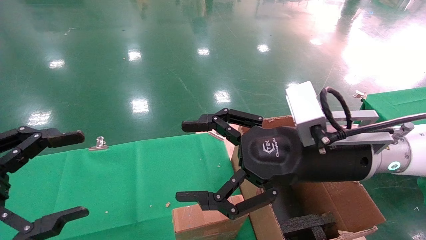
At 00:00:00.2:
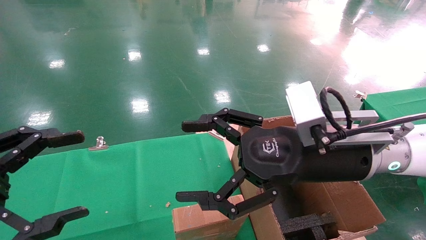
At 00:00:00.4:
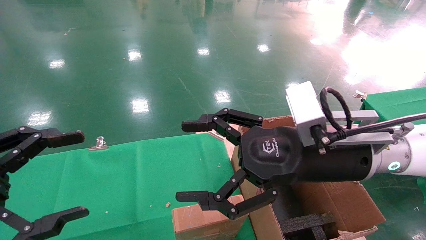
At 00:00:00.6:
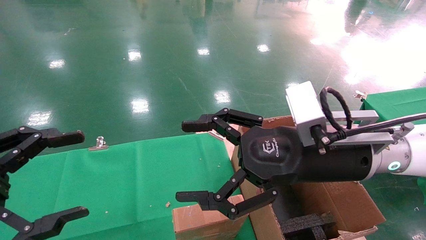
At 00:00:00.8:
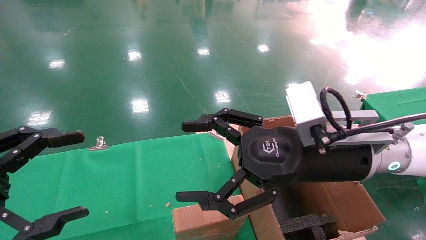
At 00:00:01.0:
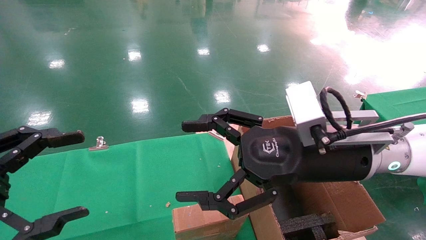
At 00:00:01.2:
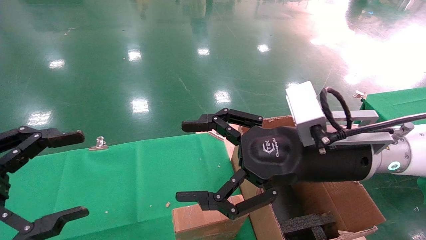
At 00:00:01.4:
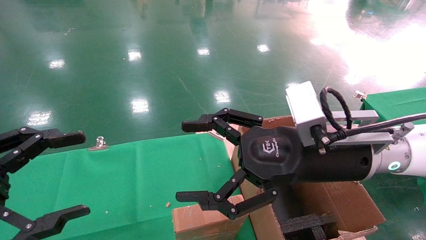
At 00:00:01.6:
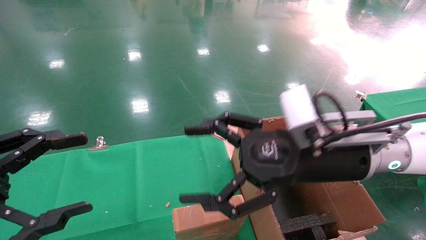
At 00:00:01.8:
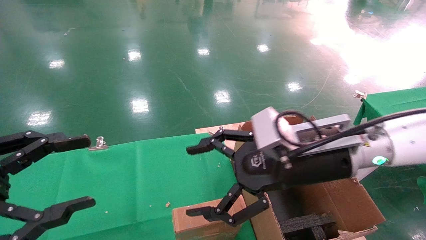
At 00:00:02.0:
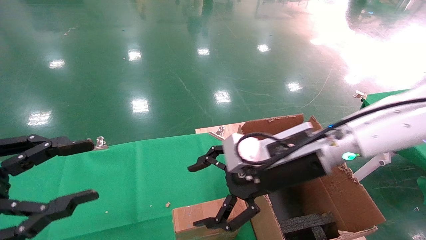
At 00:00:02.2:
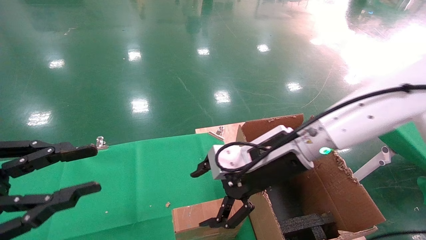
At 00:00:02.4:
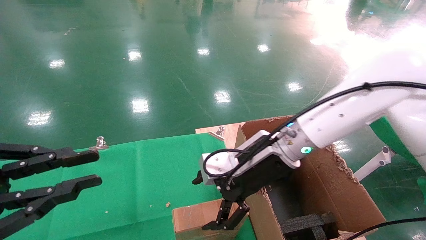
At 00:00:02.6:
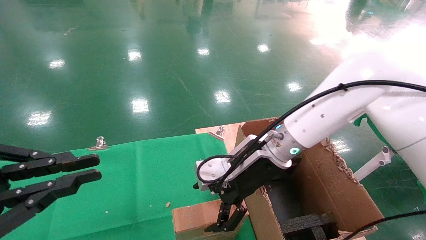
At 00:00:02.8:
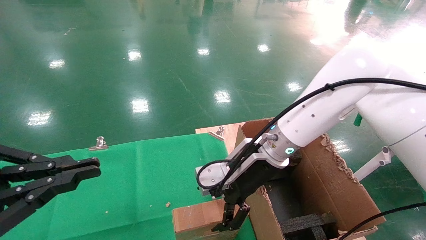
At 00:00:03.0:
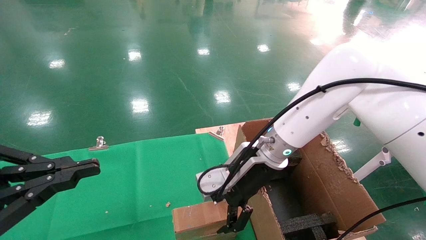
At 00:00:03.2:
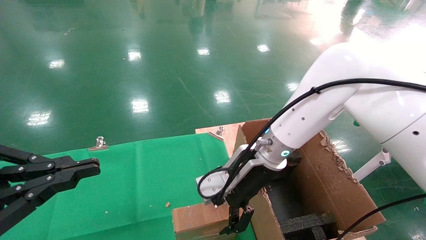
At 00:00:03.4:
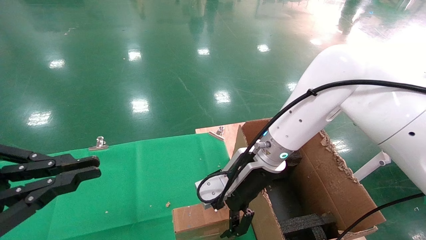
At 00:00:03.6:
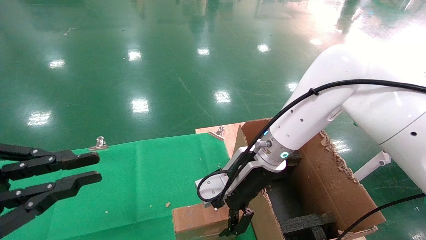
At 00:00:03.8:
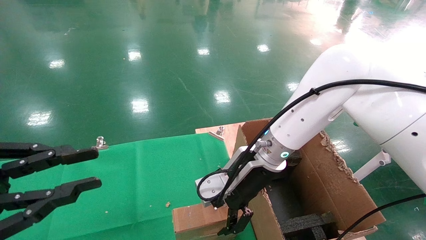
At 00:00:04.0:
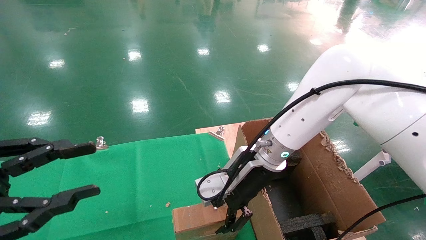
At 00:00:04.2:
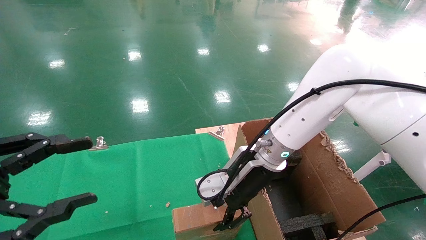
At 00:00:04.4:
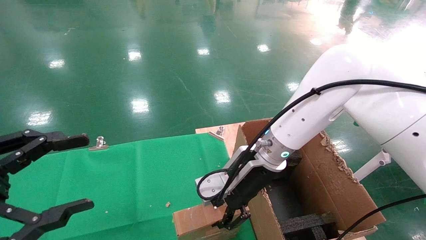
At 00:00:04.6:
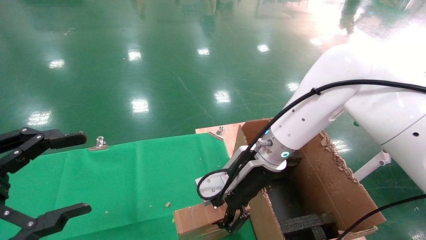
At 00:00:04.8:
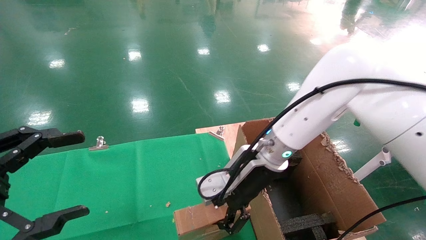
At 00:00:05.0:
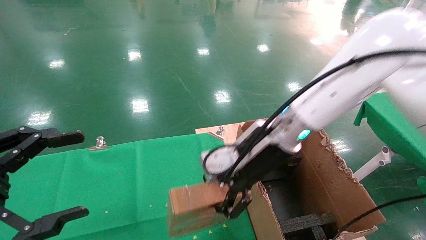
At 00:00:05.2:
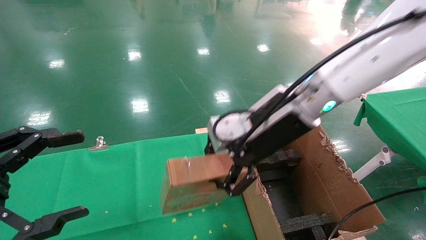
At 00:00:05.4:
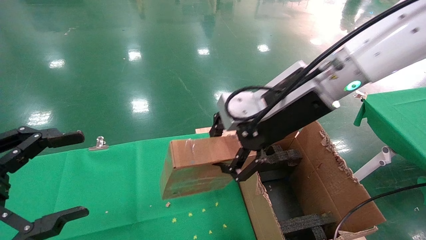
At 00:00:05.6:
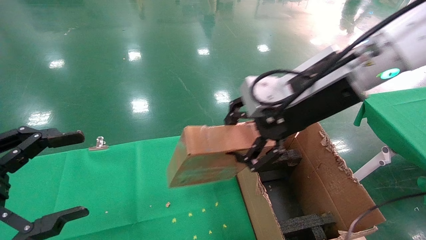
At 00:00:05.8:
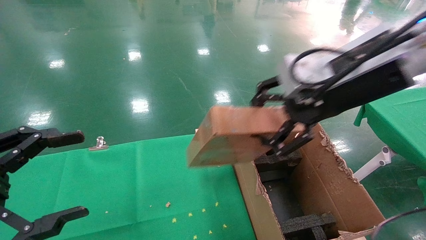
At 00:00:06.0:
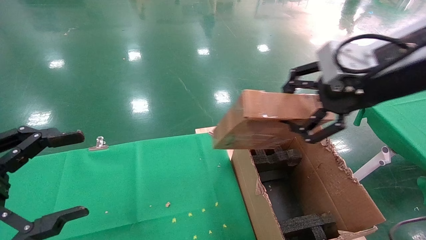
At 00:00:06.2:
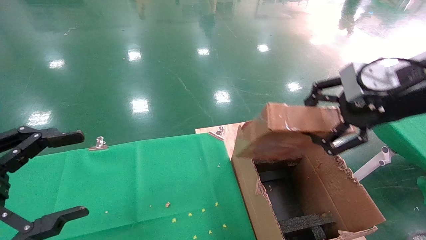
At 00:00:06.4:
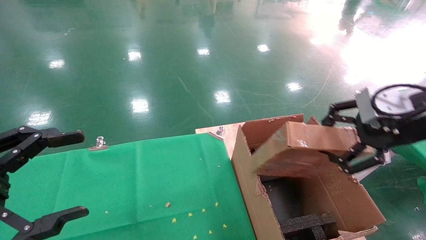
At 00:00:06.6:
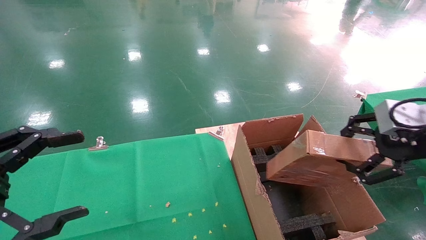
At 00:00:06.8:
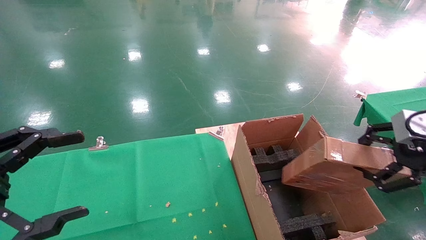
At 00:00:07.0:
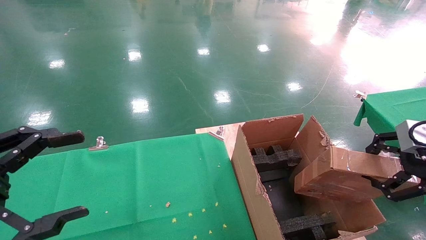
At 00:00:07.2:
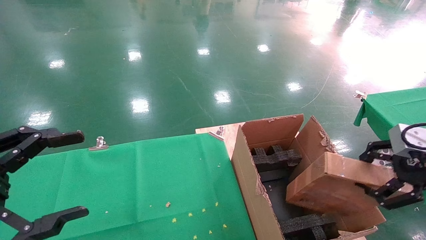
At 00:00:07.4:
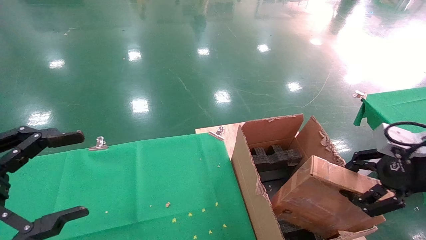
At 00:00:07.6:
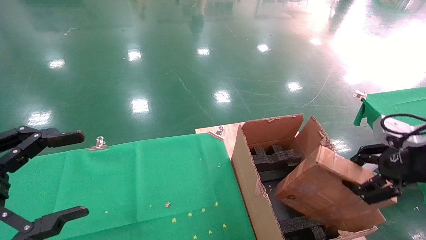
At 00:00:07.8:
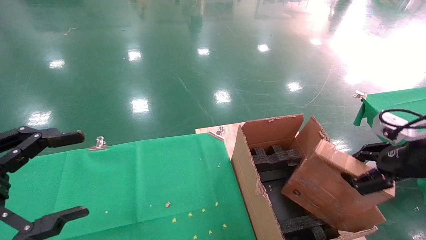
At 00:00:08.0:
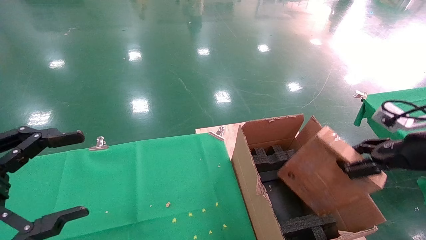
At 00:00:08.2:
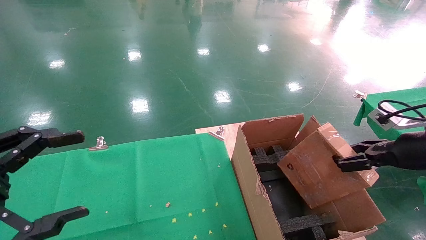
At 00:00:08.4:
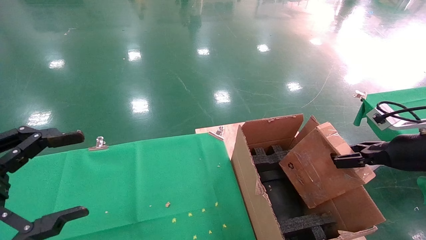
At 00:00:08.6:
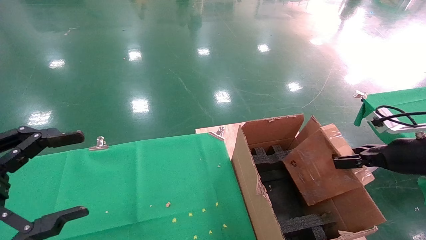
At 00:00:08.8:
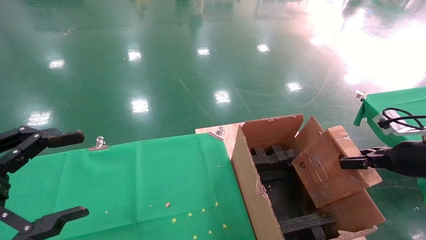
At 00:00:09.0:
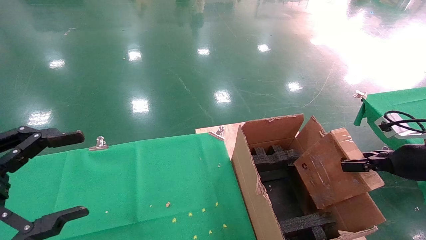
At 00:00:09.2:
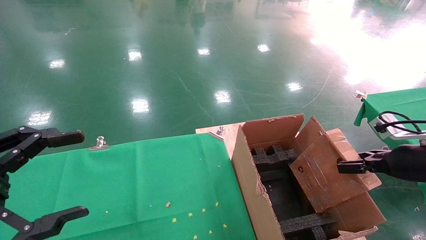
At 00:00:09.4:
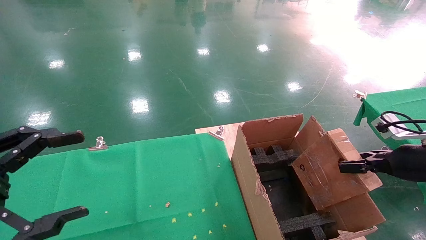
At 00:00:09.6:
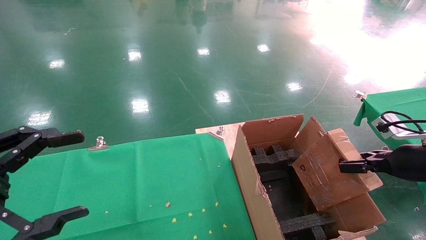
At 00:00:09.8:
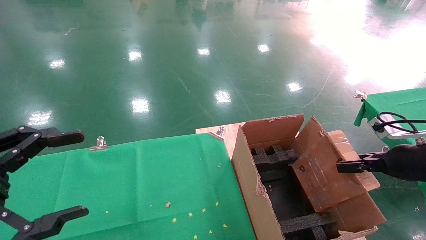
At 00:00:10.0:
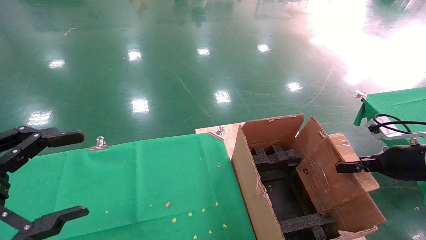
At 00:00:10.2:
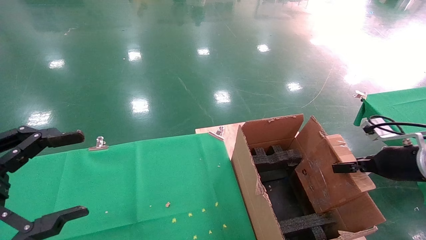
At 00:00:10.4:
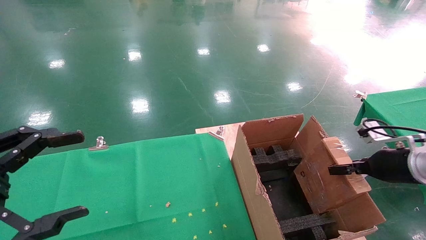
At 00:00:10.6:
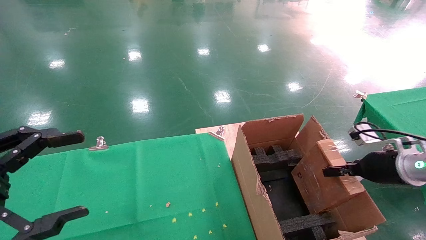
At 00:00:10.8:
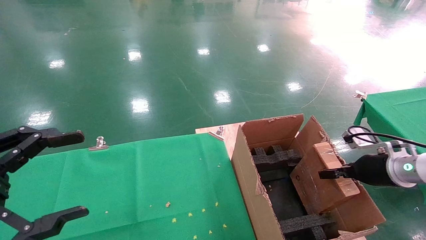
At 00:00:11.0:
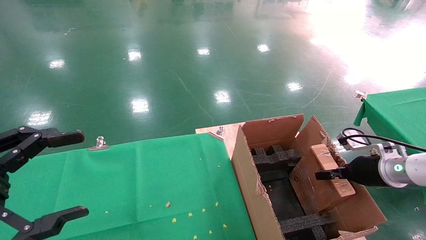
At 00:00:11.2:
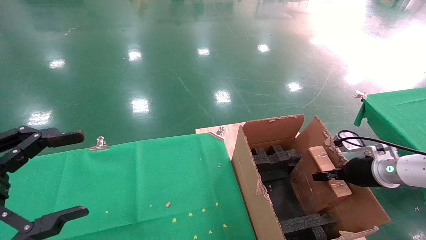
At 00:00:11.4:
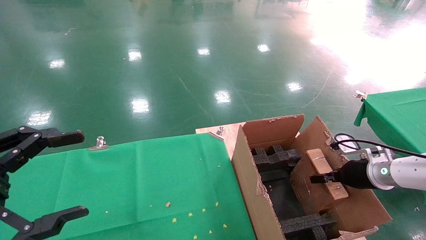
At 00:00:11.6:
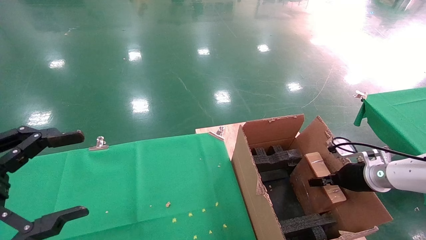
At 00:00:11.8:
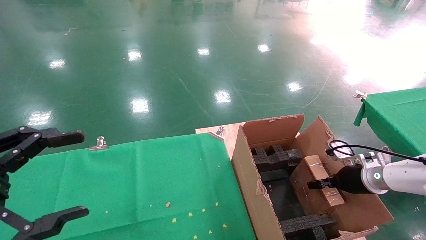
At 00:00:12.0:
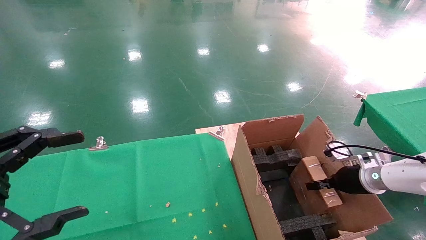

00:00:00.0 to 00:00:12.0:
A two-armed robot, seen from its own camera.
Task of the whole recording: using a robotic arm to pick up a cardboard box and palace it the carton.
Step, 00:00:01.8 to 00:00:04.8: Pick up the mouse and the power cord paper box.
00:00:00.0 to 00:00:01.6: The grippers make only small movements.
00:00:01.6 to 00:00:03.0: The left gripper closes its fingers. The right gripper travels forward and to the left by approximately 10 cm.
00:00:03.0 to 00:00:04.4: The left gripper opens up. The right gripper closes up.
00:00:04.4 to 00:00:06.0: The right gripper shifts roughly 25 cm upward, to the right and backward, and closes its fingers.
00:00:06.0 to 00:00:07.6: The right gripper heads to the right and downward, covering approximately 20 cm.
00:00:07.6 to 00:00:09.0: The right gripper moves downward, approximately 5 cm.
00:00:09.0 to 00:00:10.4: The right gripper moves some 5 cm.
00:00:10.4 to 00:00:12.0: The right gripper is displaced downward and forward by approximately 10 cm.

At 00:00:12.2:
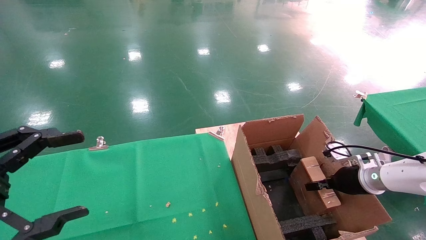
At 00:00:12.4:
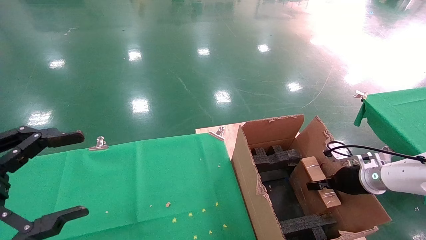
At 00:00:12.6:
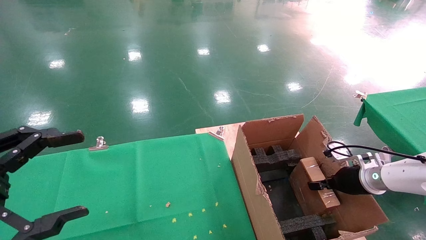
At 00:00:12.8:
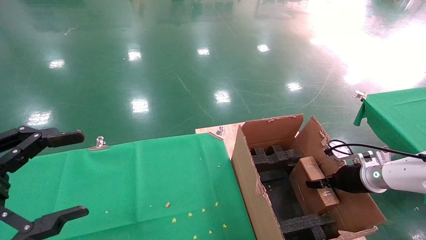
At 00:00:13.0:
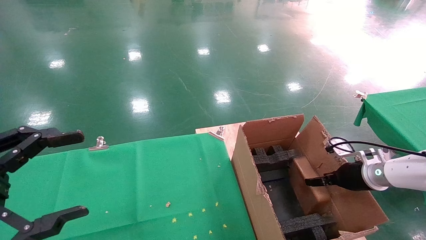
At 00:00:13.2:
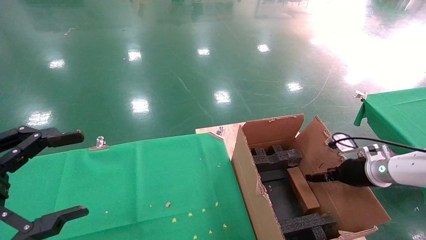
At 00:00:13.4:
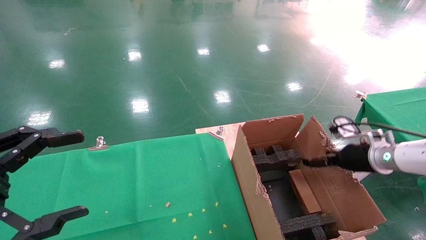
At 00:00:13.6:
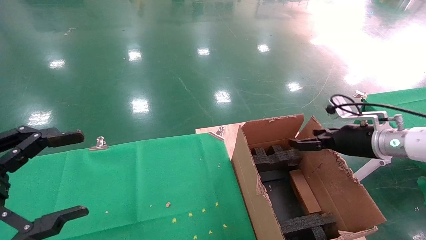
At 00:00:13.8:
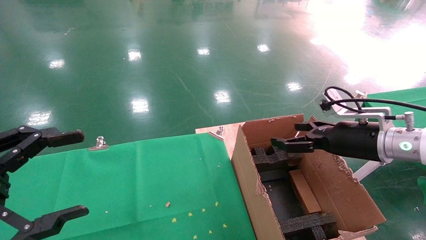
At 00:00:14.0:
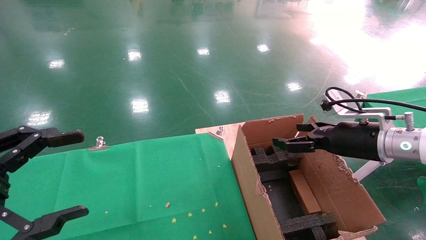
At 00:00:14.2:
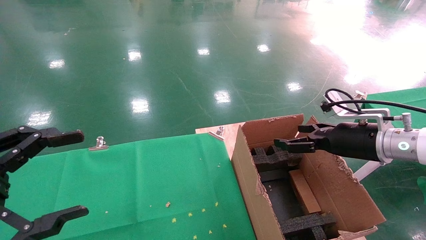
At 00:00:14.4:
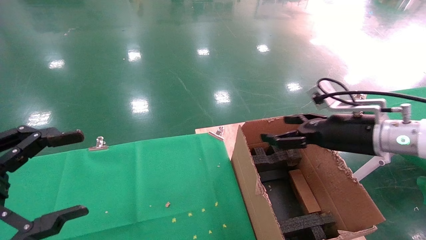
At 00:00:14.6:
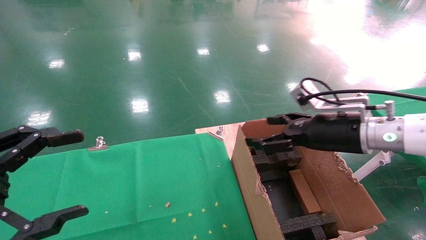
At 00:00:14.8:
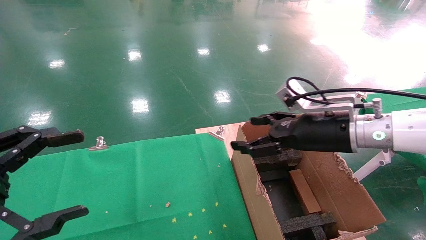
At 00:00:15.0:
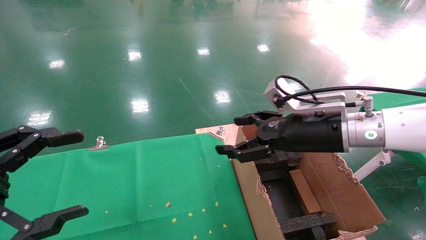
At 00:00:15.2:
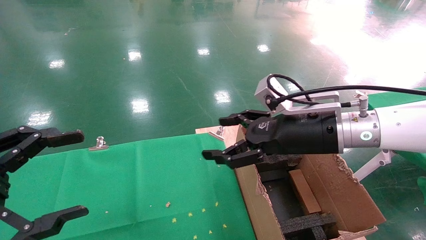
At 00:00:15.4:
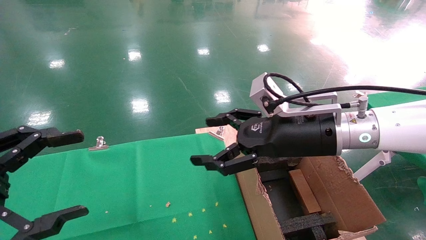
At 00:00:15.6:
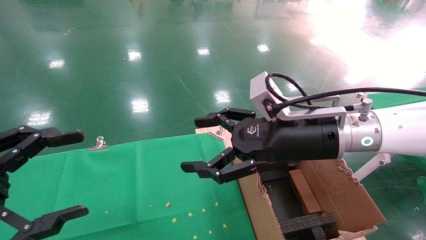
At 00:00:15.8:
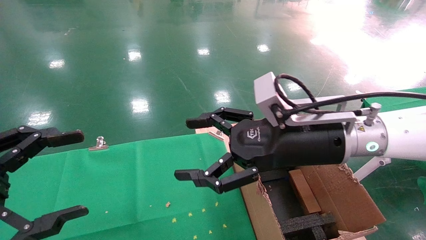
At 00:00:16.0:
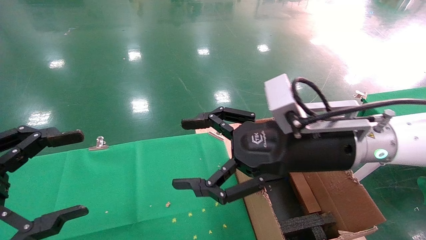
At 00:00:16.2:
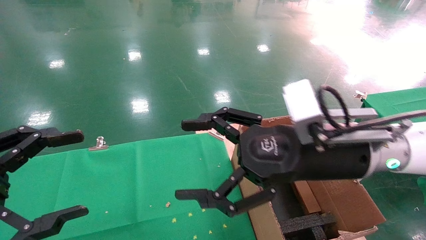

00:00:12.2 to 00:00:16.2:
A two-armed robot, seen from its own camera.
Task of the whole recording: using a robotic arm to pick up a cardboard box and palace it the carton.
00:00:12.2 to 00:00:13.6: The right gripper heads upward, covering about 10 cm, and opens up.
00:00:13.6 to 00:00:14.8: The right gripper travels to the left and upward by about 15 cm.
00:00:14.8 to 00:00:16.2: The right gripper shifts some 10 cm to the left and backward.
